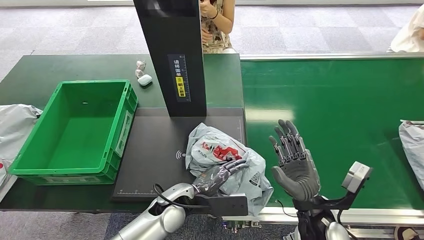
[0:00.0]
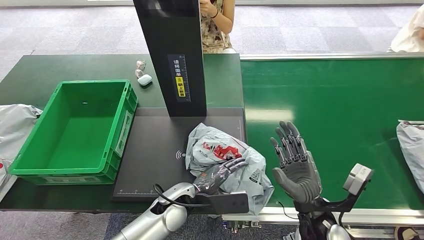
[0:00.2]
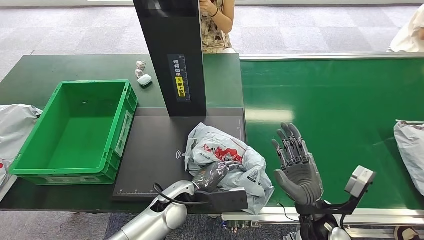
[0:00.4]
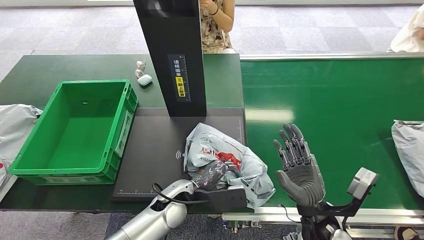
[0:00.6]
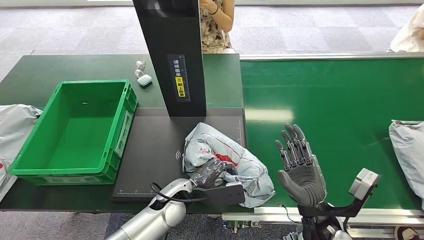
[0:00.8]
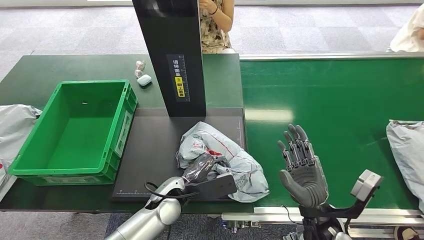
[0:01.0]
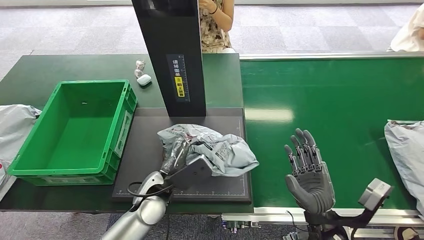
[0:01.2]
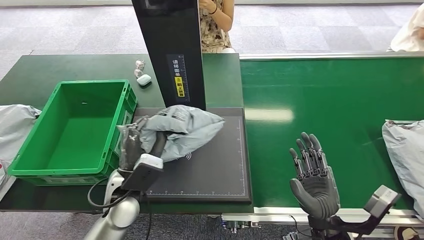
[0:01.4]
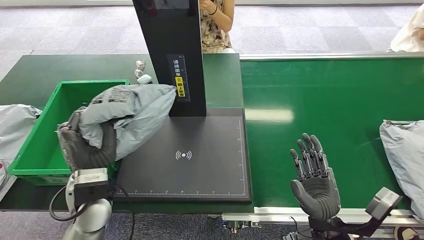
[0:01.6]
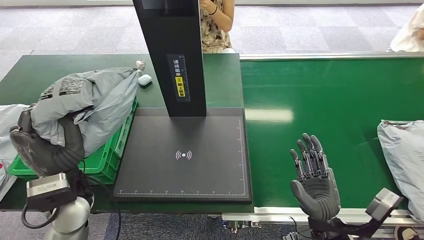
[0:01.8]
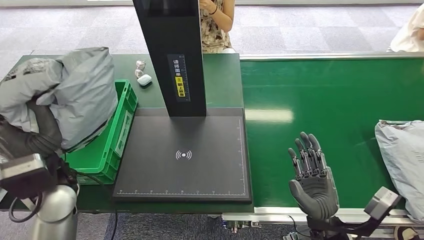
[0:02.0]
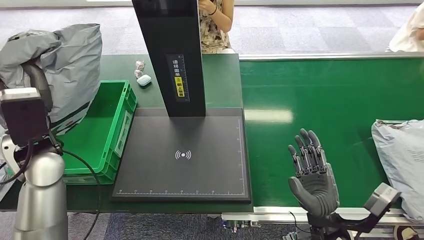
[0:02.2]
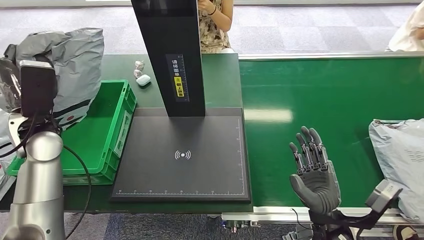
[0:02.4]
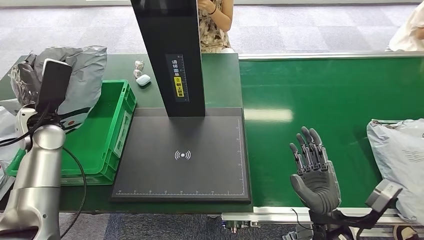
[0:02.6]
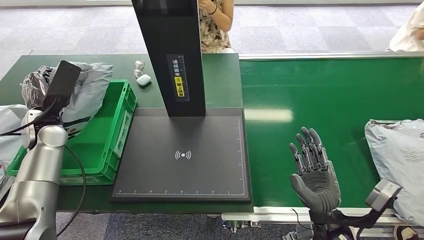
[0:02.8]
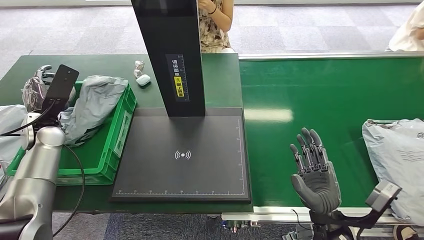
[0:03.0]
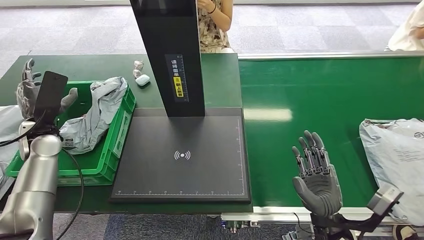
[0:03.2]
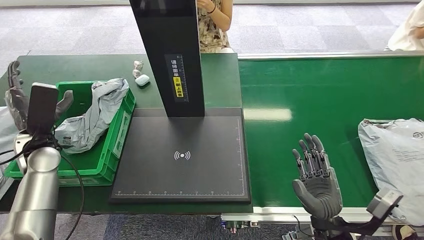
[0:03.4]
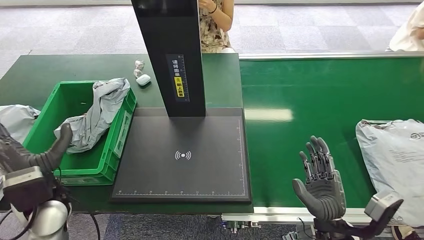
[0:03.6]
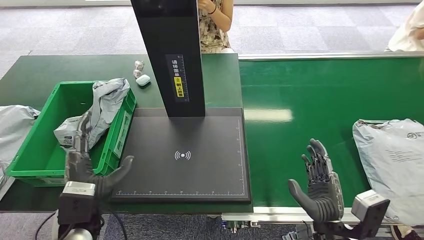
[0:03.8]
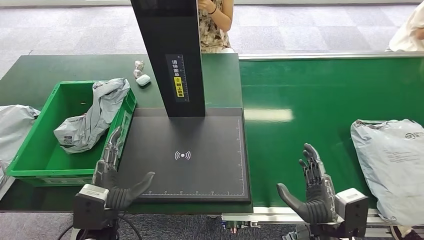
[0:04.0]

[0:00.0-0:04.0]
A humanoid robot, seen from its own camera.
Task of the whole recording: Weigh the package on the weighing device and place it in the left basket.
Step, 0:00.0 to 0:01.4: Pick up the package from the inbound machine.
Step, 0:01.6 to 0:04.0: Place the package into the parcel locker.
